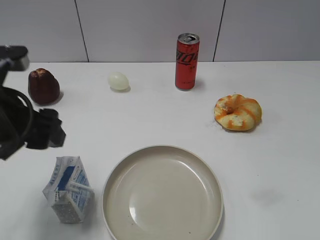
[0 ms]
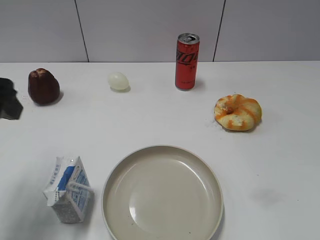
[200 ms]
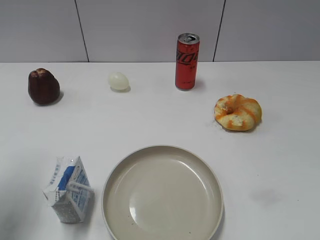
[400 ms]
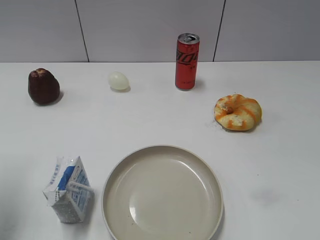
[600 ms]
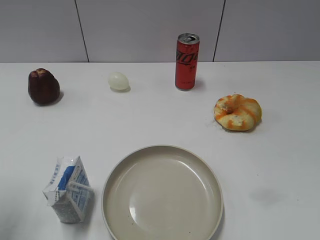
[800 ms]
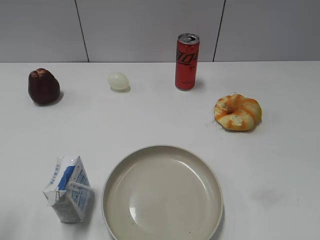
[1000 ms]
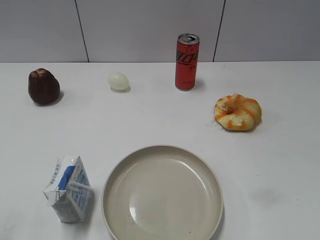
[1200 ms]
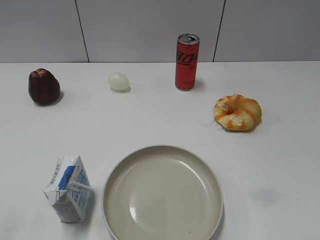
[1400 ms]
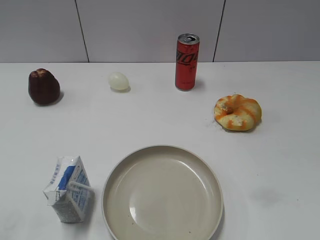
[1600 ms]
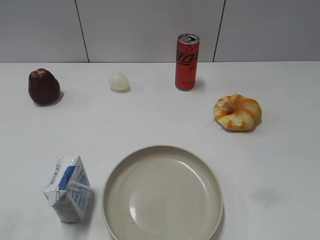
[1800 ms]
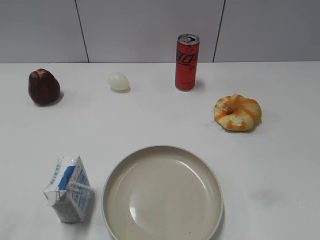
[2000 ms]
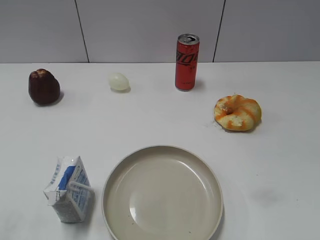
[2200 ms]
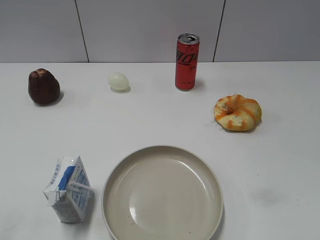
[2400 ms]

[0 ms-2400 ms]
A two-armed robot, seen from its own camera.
0 ms to 1200 ms: The left gripper shifts approximately 15 cm backward and to the left.
